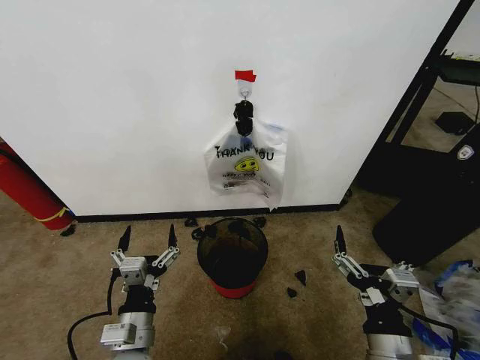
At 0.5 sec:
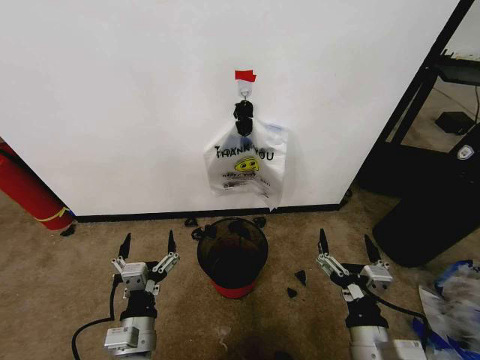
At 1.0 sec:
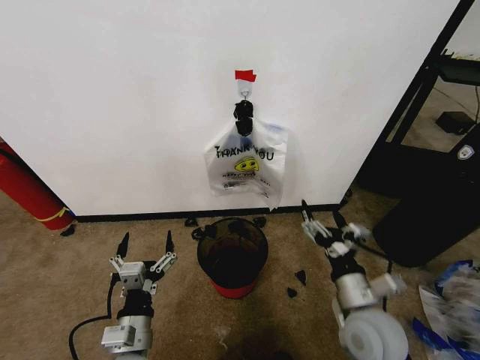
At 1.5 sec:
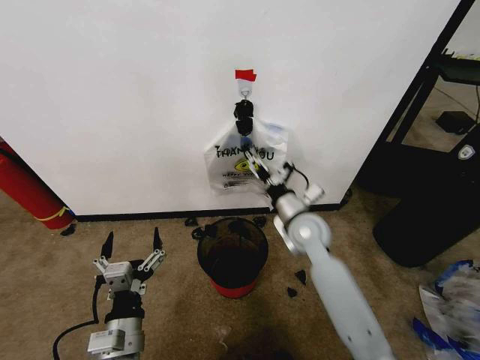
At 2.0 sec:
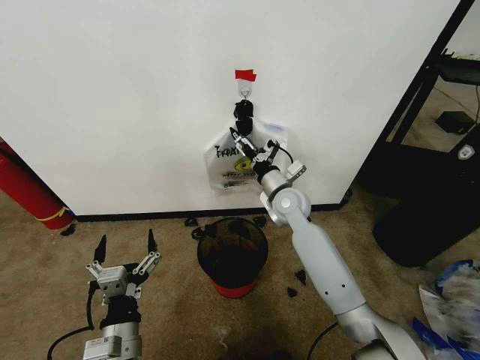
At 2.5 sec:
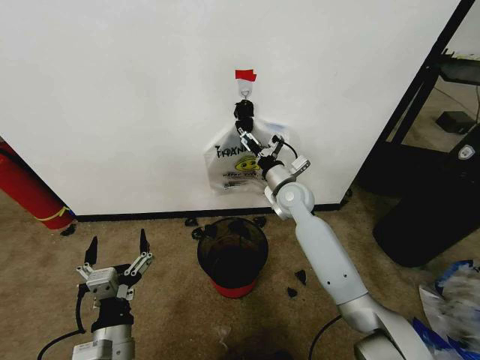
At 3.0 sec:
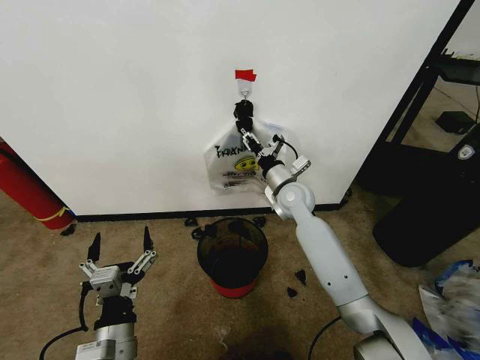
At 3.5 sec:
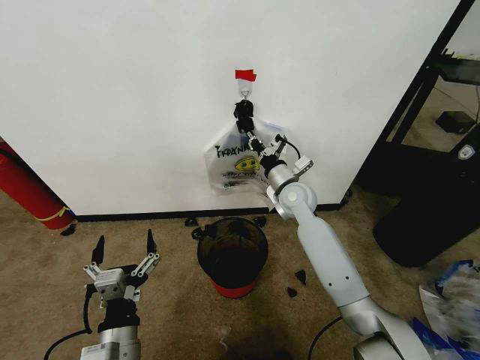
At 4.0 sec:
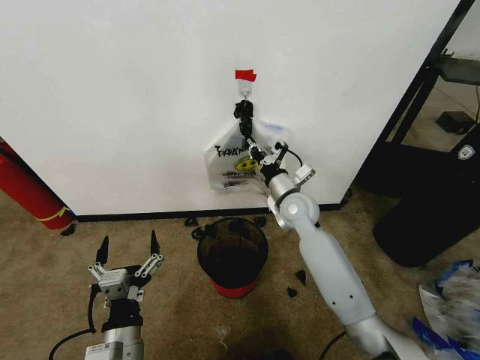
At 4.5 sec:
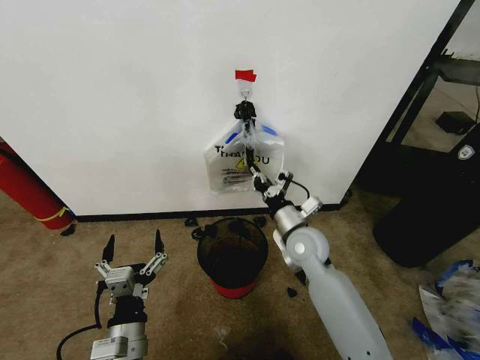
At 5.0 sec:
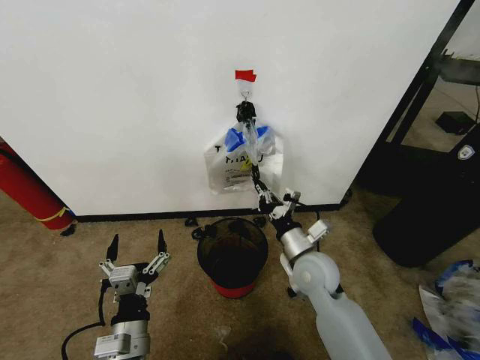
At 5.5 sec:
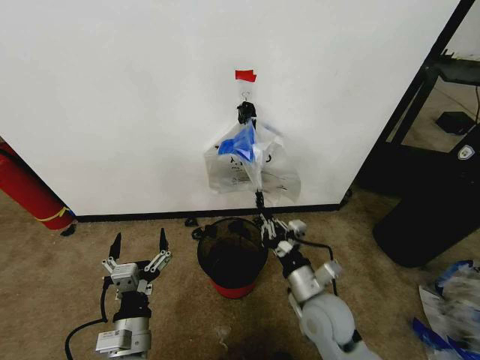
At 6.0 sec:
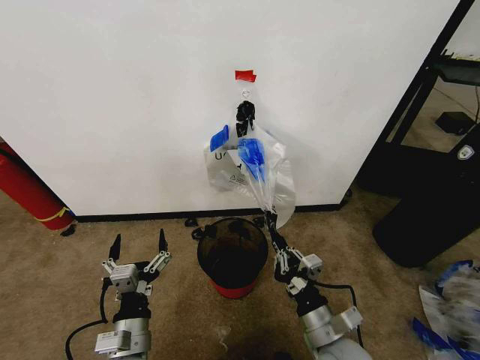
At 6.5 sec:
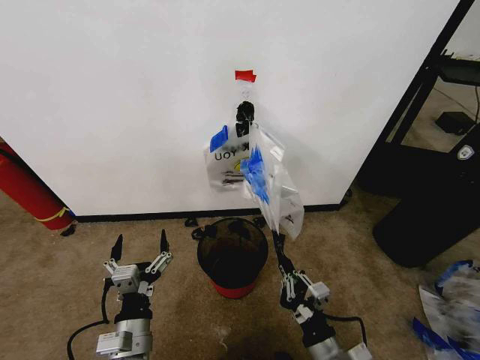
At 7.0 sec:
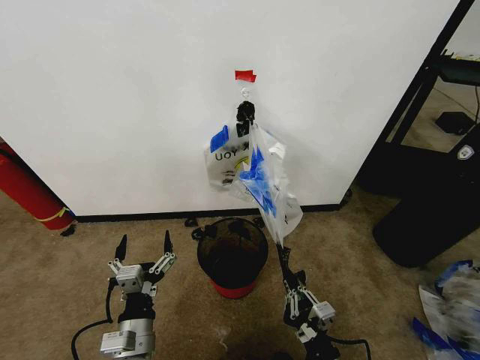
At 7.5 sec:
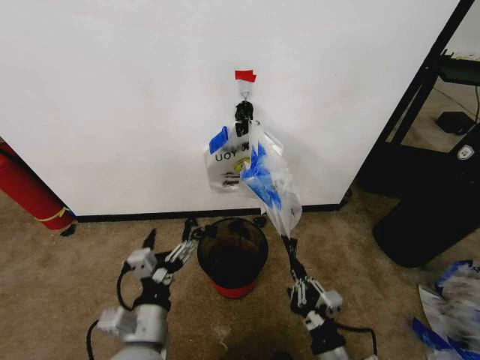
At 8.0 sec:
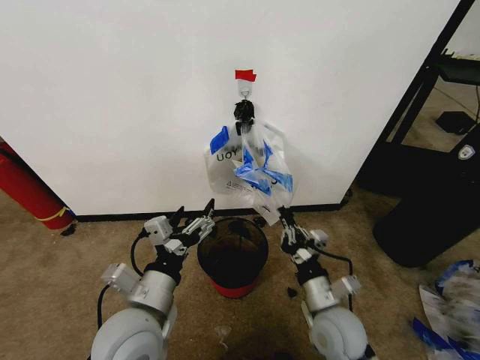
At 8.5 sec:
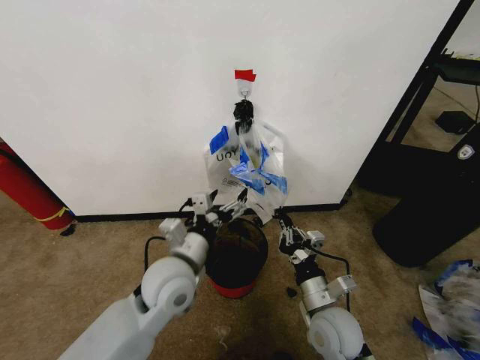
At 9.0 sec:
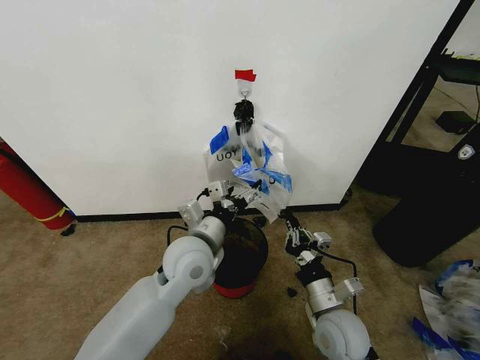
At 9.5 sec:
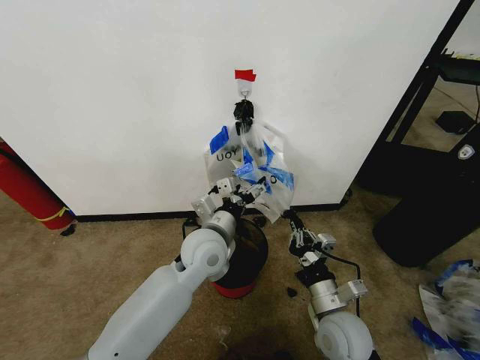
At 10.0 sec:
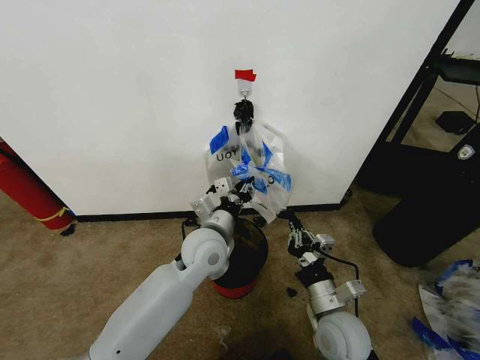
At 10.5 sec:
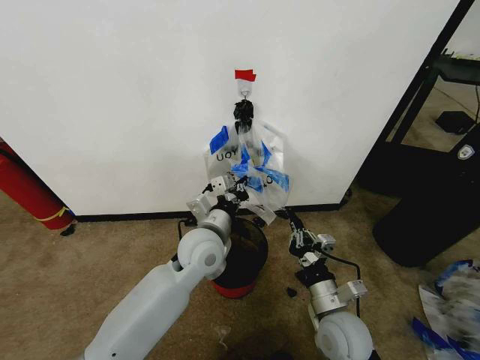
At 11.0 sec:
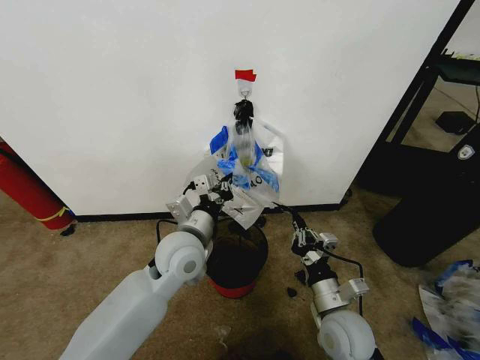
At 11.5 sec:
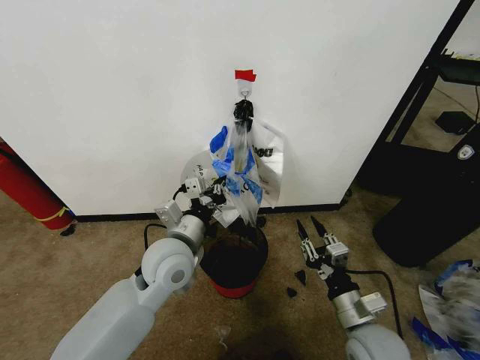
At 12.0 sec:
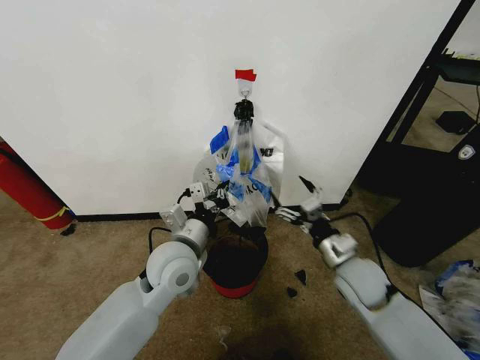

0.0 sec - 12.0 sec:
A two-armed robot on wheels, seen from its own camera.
Task of the whole recording: Pick up the garbage bag from the wall and place it over the trash bin.
2.0 sec - 4.0 sec: The right gripper closes.
4.0 sec - 6.0 sec: The right gripper heads backward, covering about 30 cm.
6.0 sec - 8.0 sec: The left gripper moves upward, roughly 10 cm. Meanwhile the right gripper is displaced forward by some 5 cm.
8.0 sec - 10.0 sec: The left gripper is displaced forward and to the right by roughly 20 cm, and closes its fingers.
10.0 sec - 12.0 sec: The left gripper shifts some 5 cm to the left, while the right gripper goes some 10 cm forward and to the right, and opens its fingers.

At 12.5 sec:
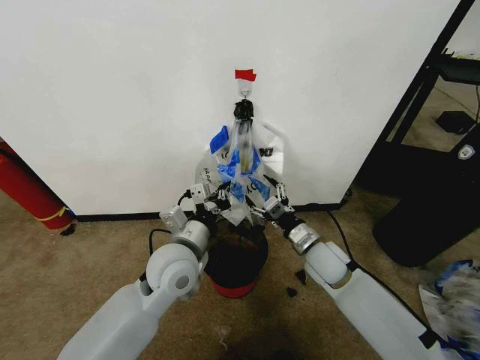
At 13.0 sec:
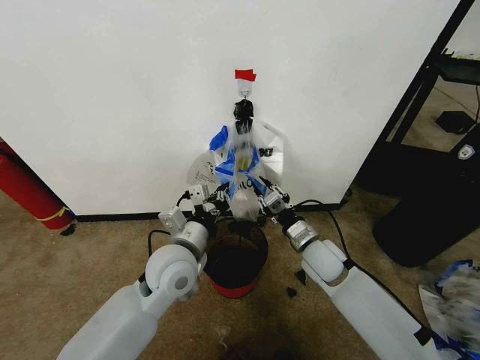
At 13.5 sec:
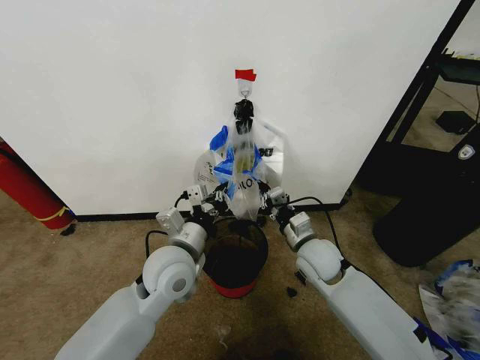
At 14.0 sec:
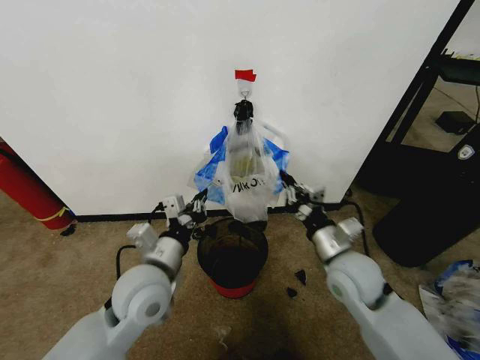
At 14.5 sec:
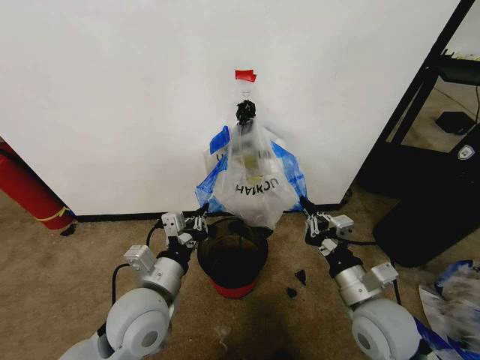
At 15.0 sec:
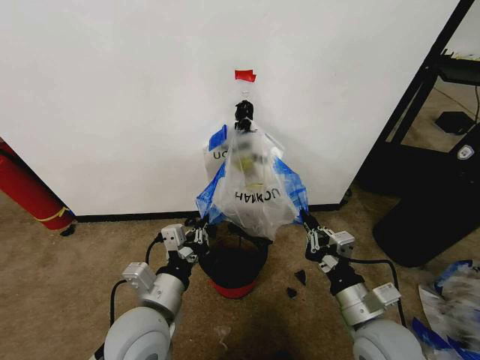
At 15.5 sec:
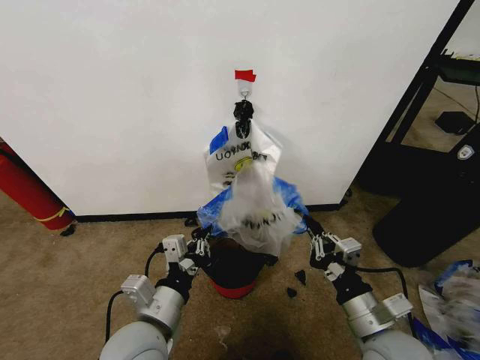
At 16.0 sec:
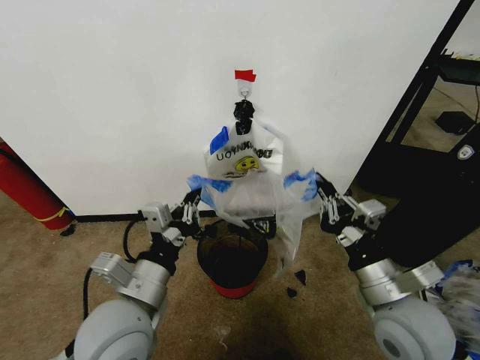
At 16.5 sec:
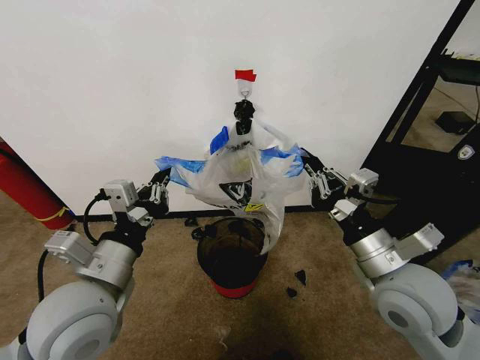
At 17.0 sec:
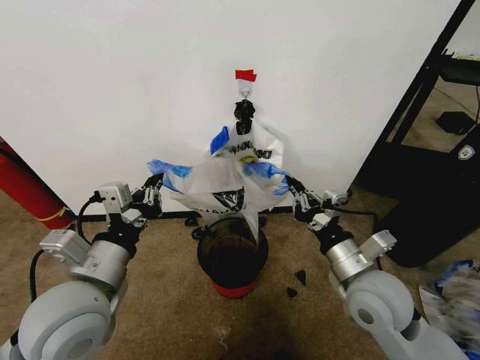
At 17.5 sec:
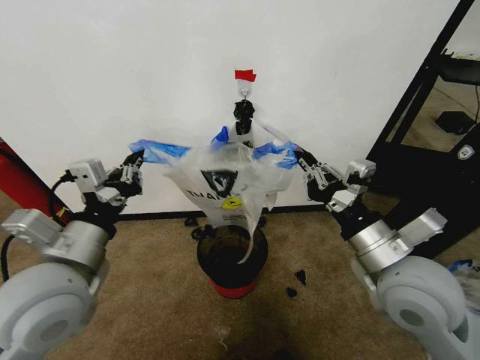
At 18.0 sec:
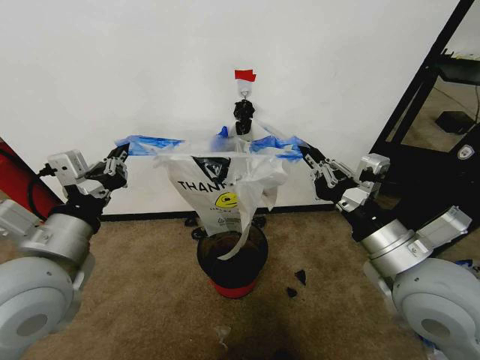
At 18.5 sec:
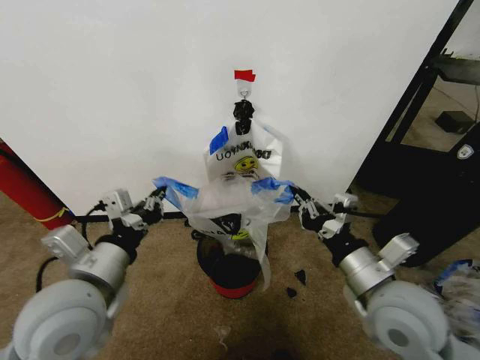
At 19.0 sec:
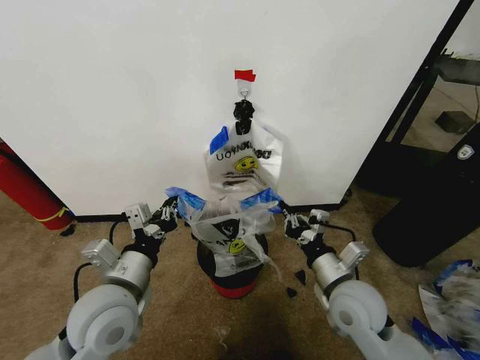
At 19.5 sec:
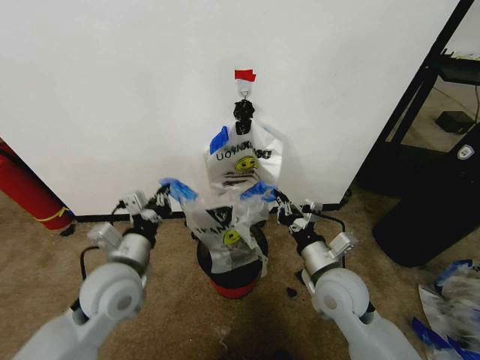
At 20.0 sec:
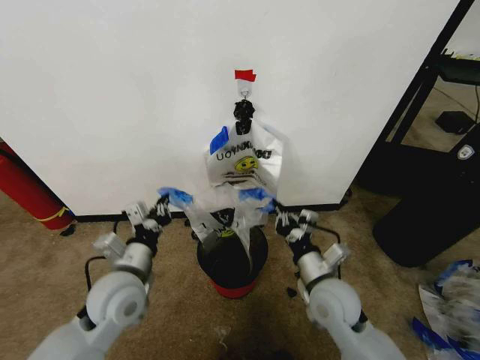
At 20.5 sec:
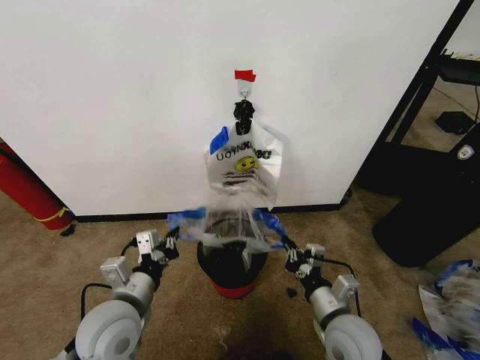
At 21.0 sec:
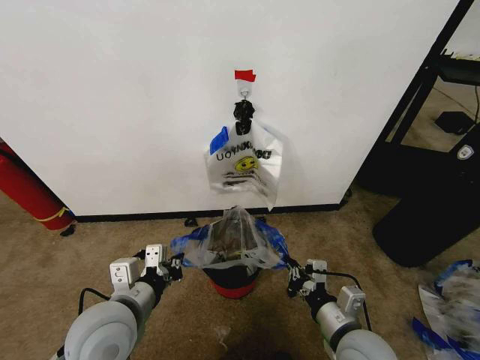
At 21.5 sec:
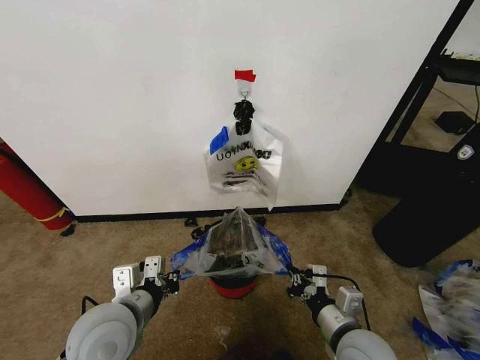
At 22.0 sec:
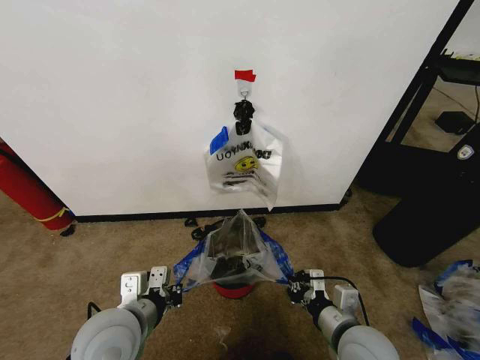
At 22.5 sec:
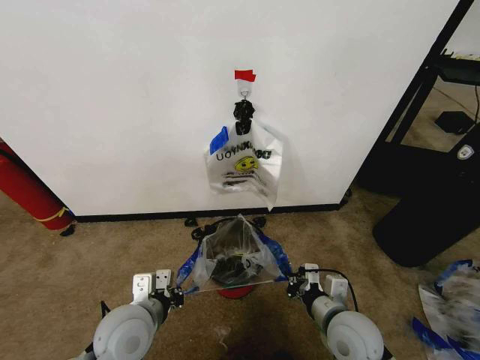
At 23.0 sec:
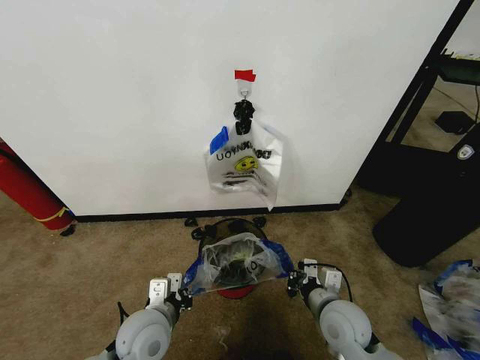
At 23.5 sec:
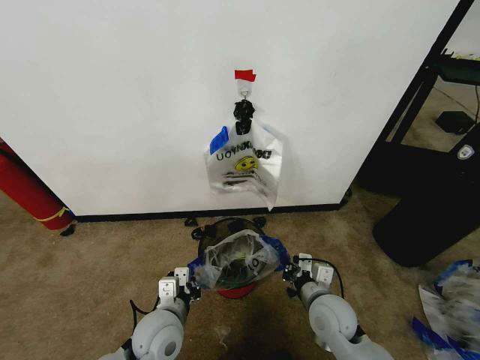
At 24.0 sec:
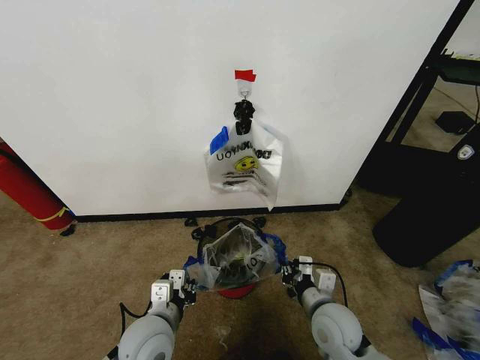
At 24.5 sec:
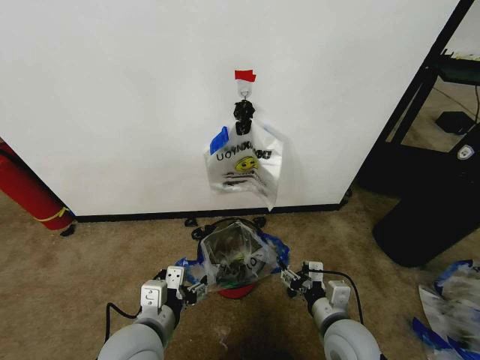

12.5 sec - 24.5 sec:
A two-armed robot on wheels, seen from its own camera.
Task of the whole recording: Pick up the garbage bag from the wall and place it over the trash bin.
12.5 sec - 14.5 sec: The right gripper moves backward, some 15 cm, and closes its fingers; the left gripper heads backward, covering some 10 cm.
14.5 sec - 16.5 sec: Both grippers move upward, some 10 cm.
16.5 sec - 18.5 sec: The right gripper goes up and down, about 10 cm each way, reversing 2 times.
18.5 sec - 20.5 sec: The two grippers go approximately 15 cm downward.
22.5 sec - 24.5 sec: The left gripper goes downward and returns, about 5 cm each way, and opens up. Meanwhile the right gripper opens up.

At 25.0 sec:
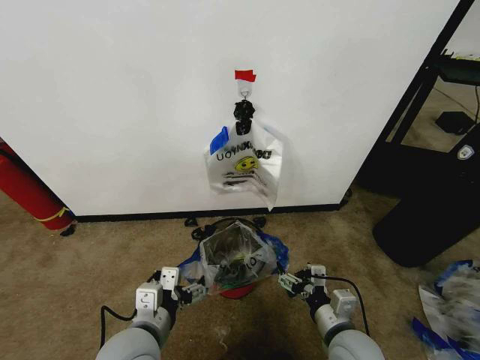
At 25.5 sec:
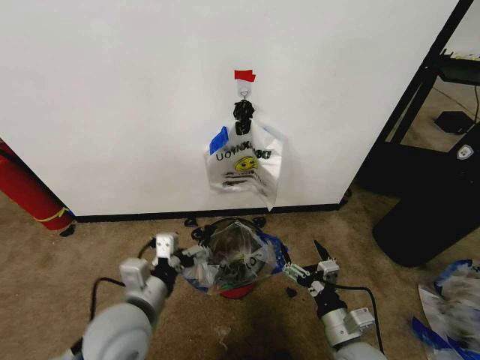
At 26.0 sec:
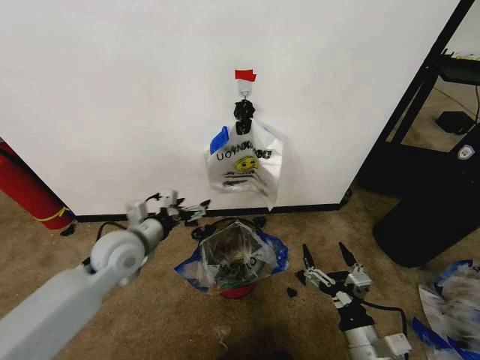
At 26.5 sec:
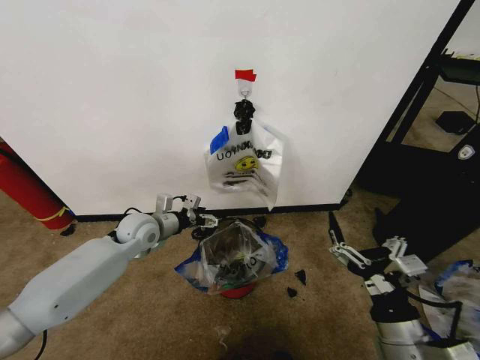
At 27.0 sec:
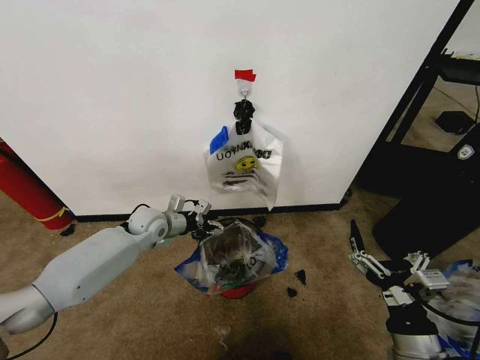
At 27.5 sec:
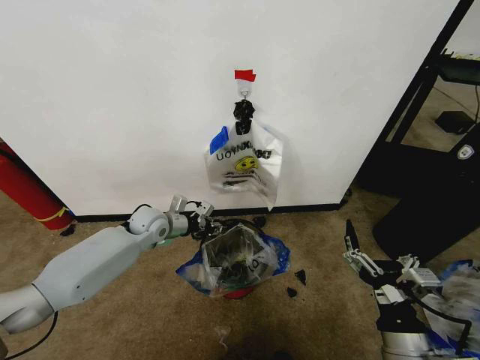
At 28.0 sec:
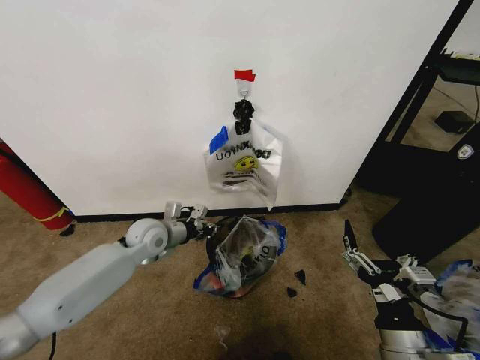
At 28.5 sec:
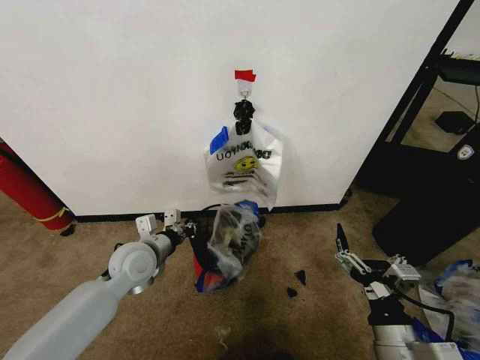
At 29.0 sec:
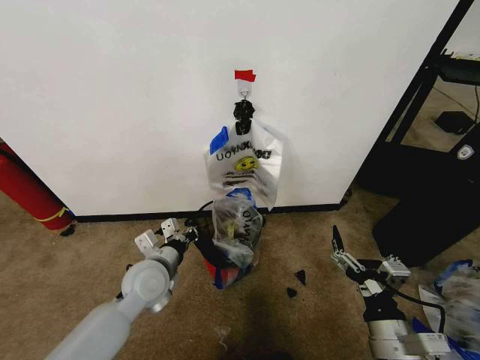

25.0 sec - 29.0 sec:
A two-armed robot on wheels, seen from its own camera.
Task of the whole recording: Pick up the garbage bag from the wall and place it over the trash bin.
25.0 sec - 27.0 sec: The right gripper moves backward, upward and to the right, roughly 10 cm. The left gripper is displaced forward by about 30 cm.
27.0 sec - 29.0 sec: The left gripper heads backward, covering roughly 15 cm, and closes its fingers.
